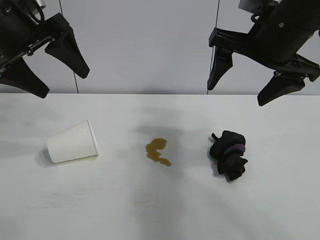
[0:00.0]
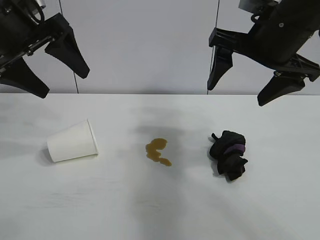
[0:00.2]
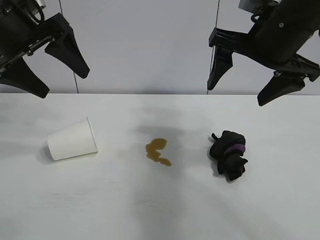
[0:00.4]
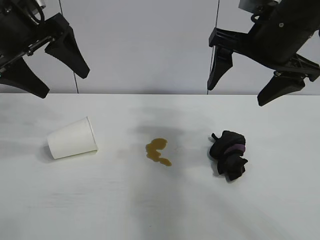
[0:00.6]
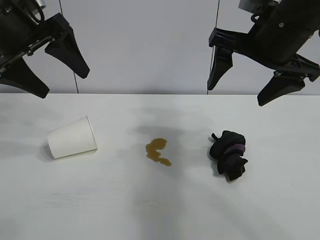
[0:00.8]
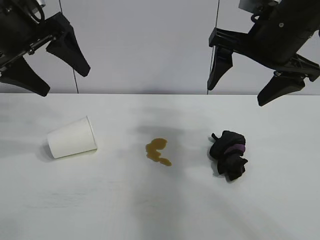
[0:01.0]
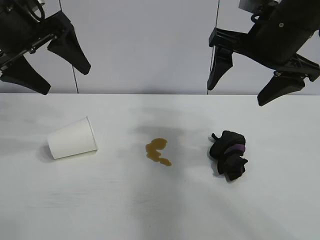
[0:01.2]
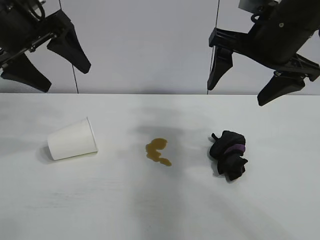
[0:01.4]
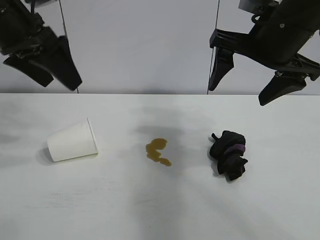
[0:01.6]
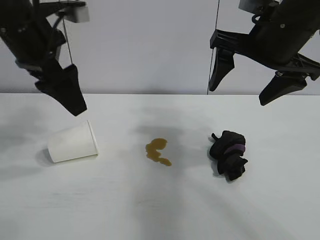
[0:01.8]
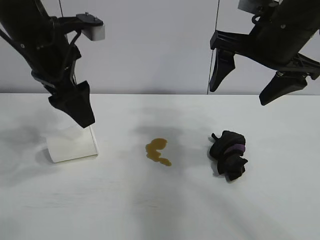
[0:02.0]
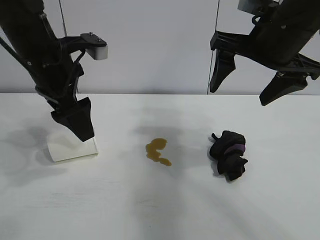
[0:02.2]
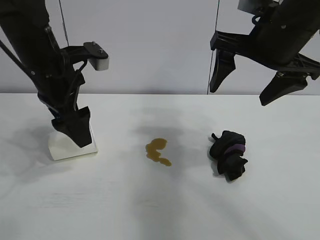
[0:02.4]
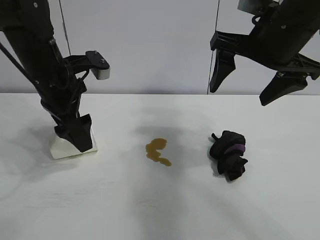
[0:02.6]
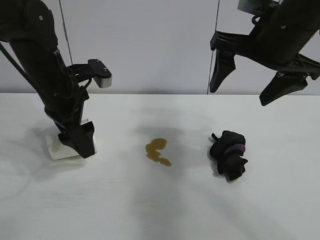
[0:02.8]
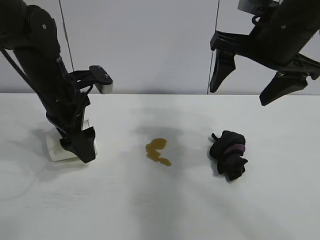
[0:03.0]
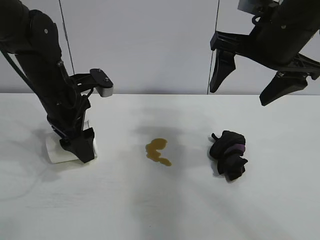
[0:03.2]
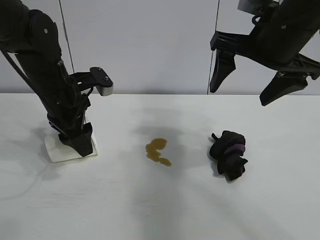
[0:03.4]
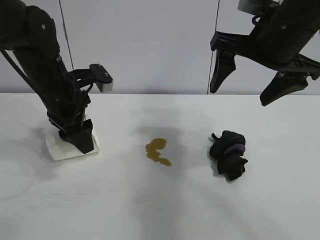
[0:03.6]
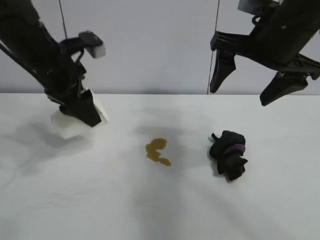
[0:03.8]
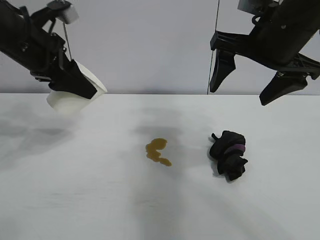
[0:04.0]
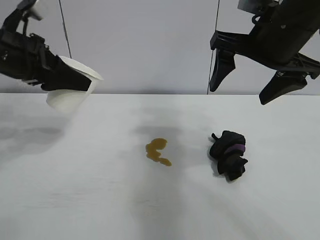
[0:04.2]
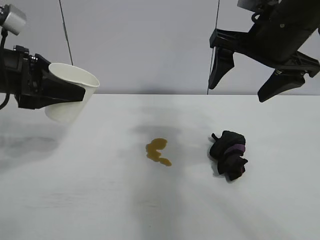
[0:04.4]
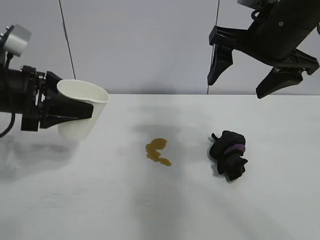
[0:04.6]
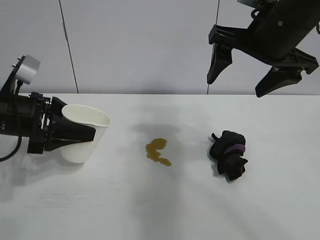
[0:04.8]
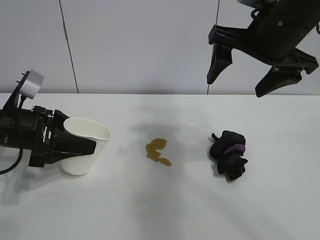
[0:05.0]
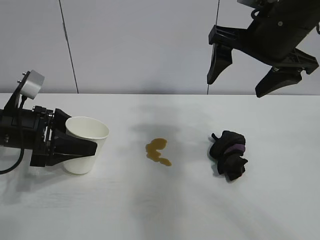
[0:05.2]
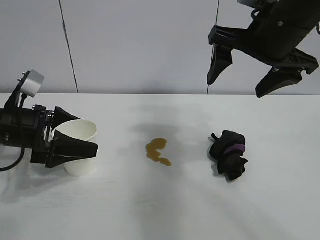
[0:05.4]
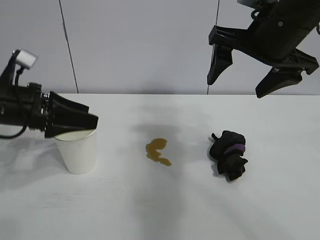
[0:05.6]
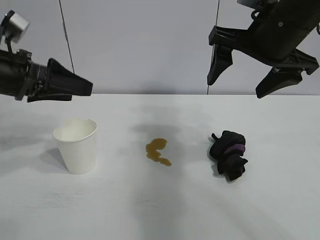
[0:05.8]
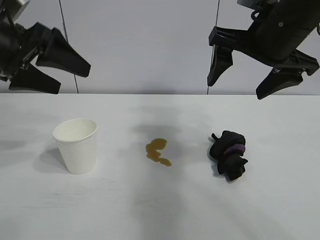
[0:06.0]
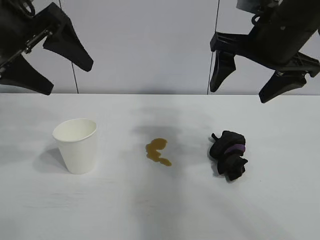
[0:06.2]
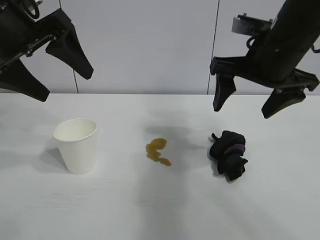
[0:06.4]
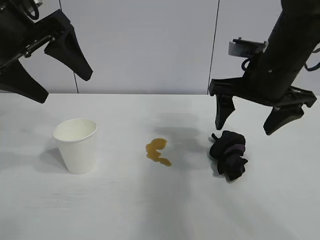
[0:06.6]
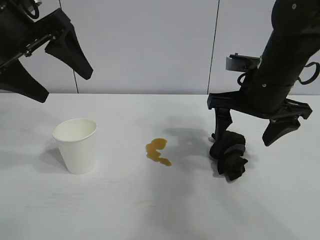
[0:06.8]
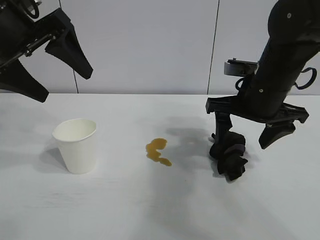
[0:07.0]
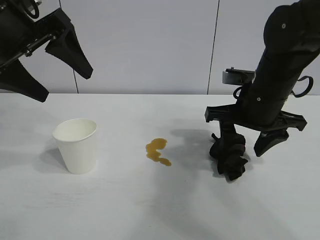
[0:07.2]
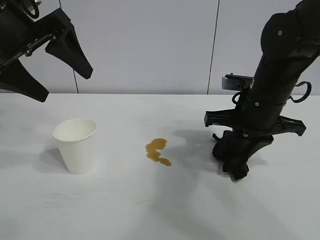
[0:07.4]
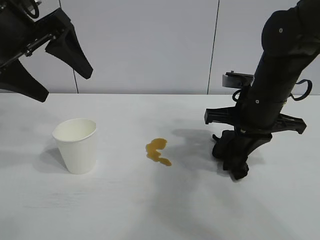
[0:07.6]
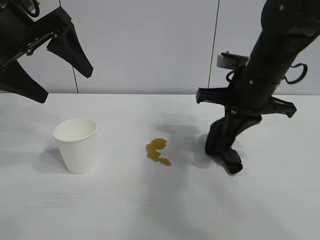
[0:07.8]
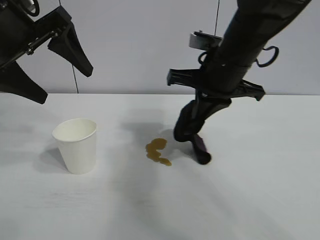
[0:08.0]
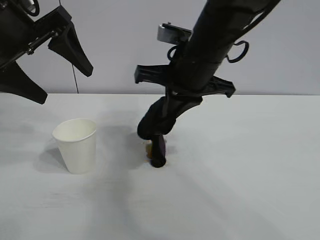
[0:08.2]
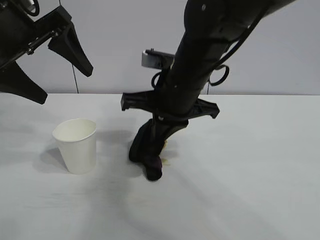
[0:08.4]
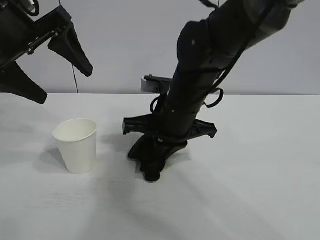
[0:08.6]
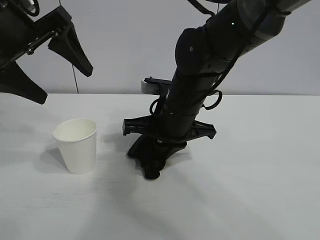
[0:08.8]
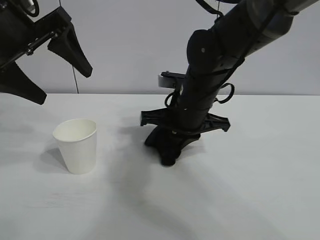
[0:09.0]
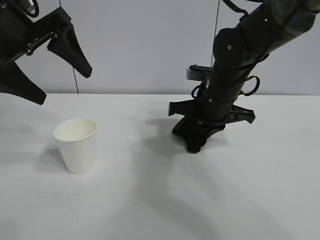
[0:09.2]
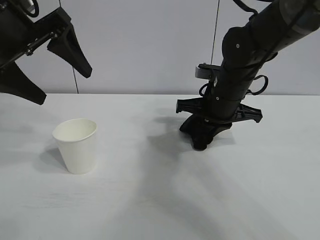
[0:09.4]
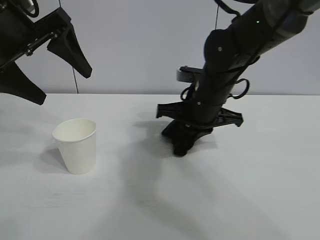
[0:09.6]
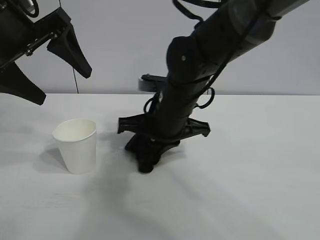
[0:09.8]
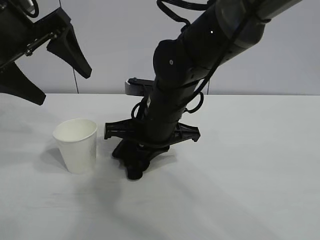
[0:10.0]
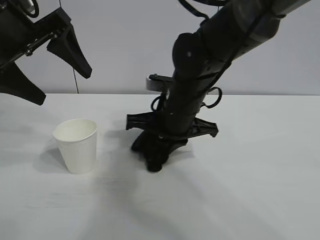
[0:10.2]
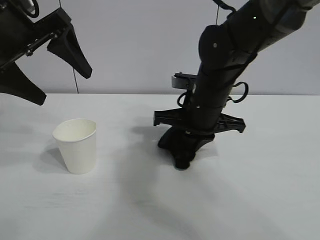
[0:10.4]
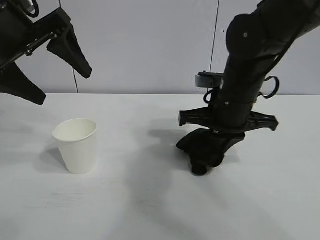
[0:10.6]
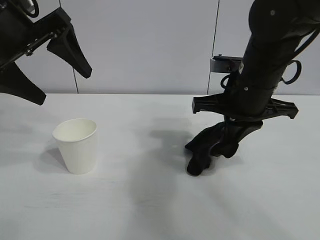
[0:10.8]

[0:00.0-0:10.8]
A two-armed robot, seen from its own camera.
Task of the whole recording: the left gripper pick up the fallen cup and place it upright, the right gripper grasp the black rag and wipe the stain on the table, the right gripper put the black rag back in its original position.
Step, 0:01.0 to 0:03.4: Grasp the paper cup with left gripper.
Step, 0:03.6 to 0:05.4: Stand the paper cup upright with left gripper.
Step, 0:05.6 to 0:07.4: Grasp the rag with right gripper.
Step, 0:07.6 to 0:10.4: Wipe the stains off the table with the rag with right gripper.
